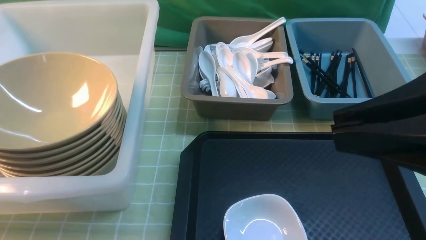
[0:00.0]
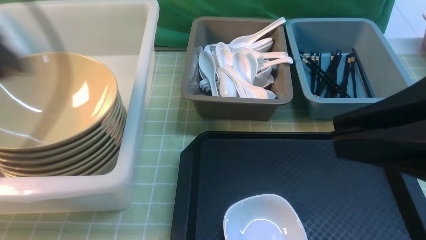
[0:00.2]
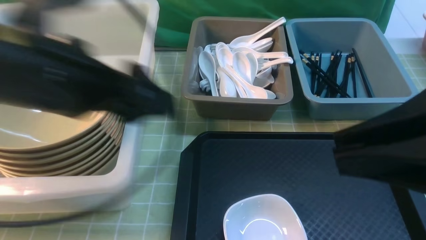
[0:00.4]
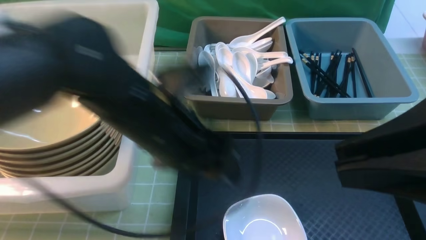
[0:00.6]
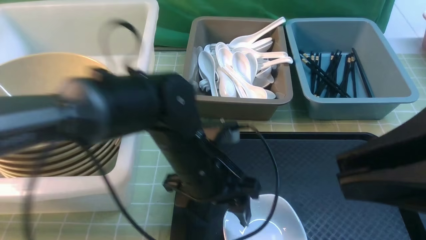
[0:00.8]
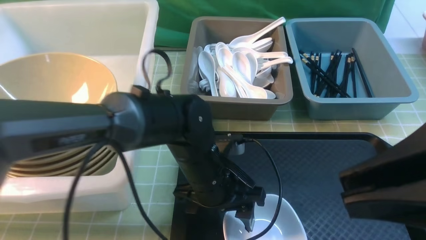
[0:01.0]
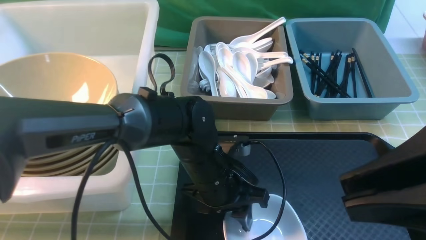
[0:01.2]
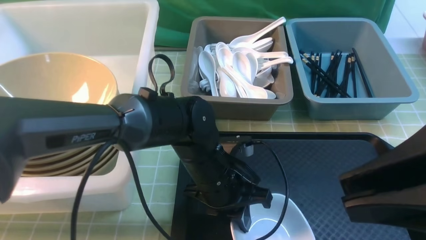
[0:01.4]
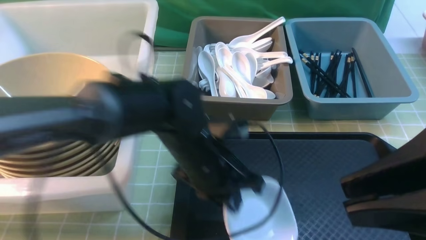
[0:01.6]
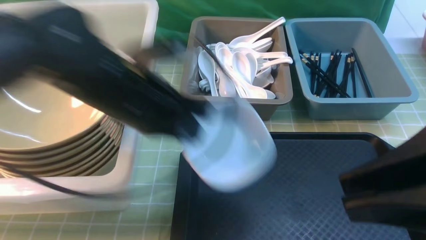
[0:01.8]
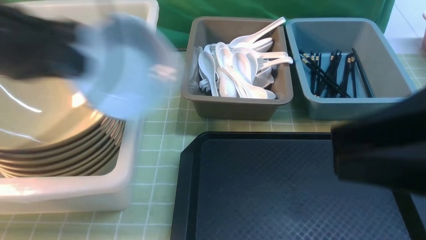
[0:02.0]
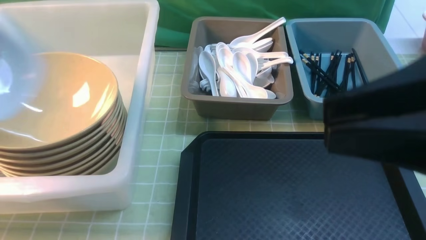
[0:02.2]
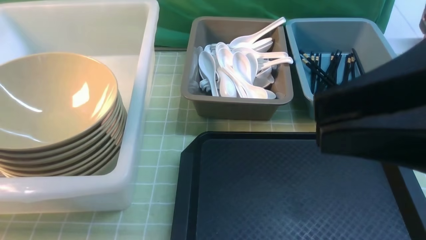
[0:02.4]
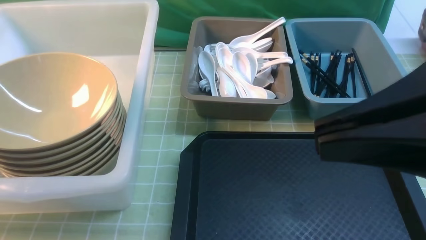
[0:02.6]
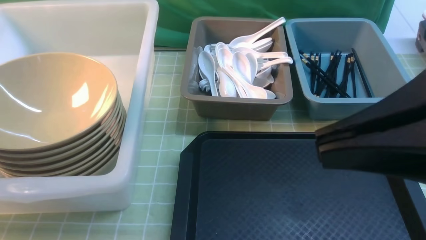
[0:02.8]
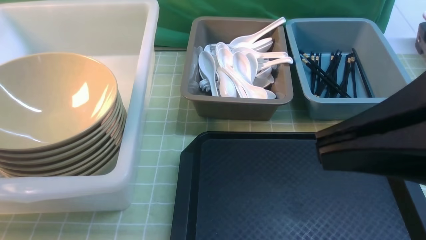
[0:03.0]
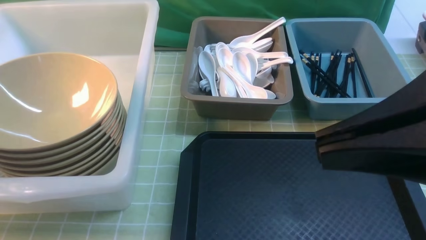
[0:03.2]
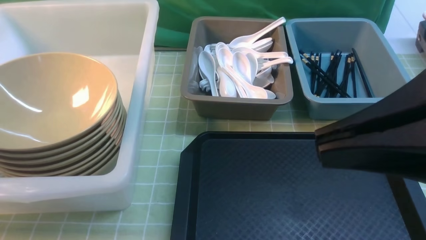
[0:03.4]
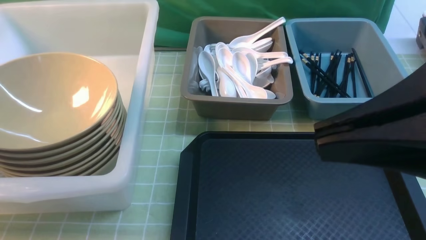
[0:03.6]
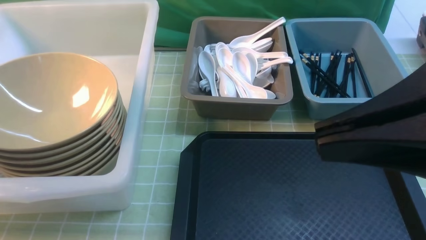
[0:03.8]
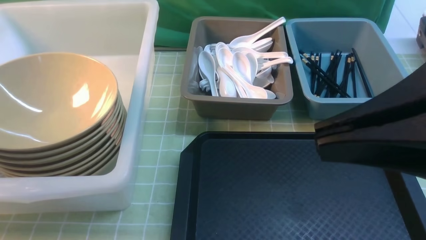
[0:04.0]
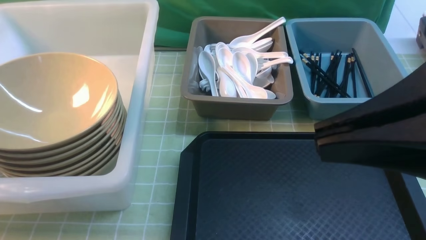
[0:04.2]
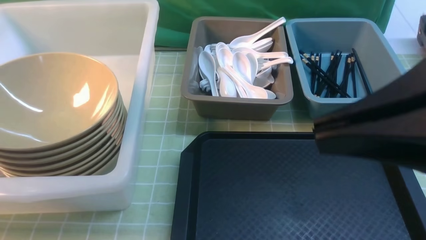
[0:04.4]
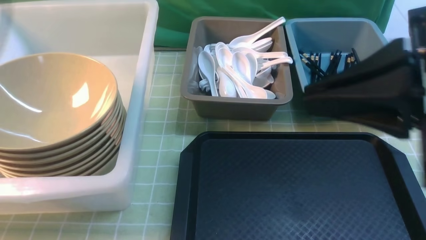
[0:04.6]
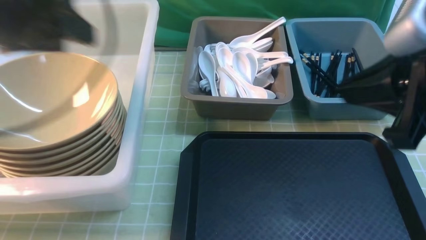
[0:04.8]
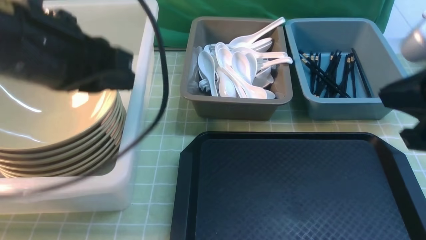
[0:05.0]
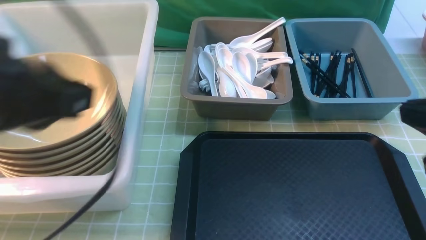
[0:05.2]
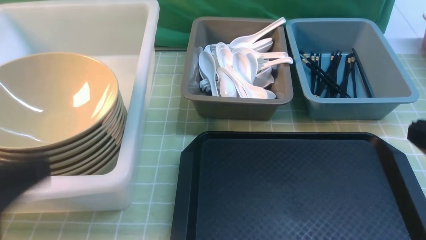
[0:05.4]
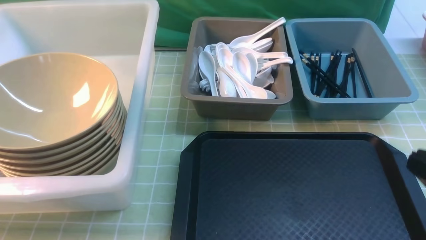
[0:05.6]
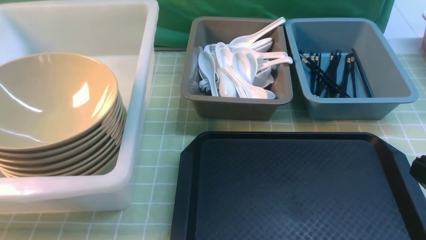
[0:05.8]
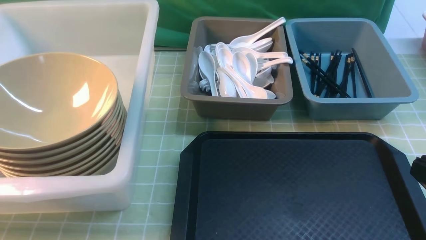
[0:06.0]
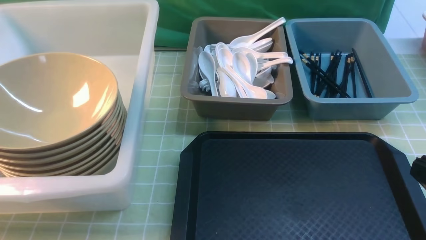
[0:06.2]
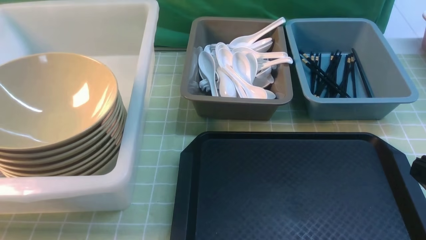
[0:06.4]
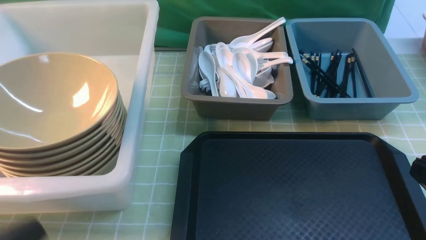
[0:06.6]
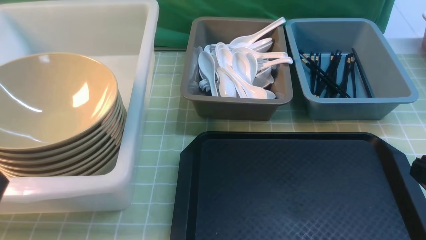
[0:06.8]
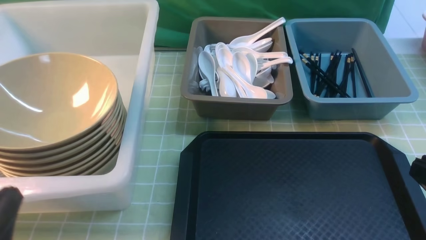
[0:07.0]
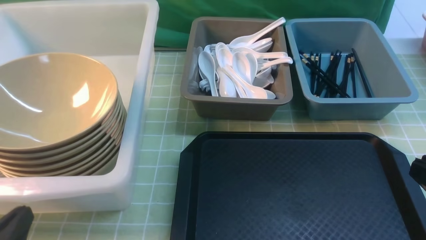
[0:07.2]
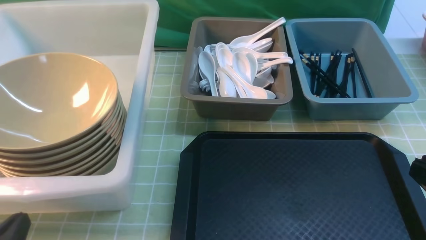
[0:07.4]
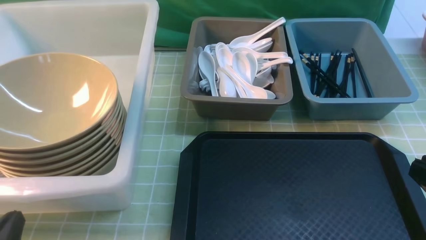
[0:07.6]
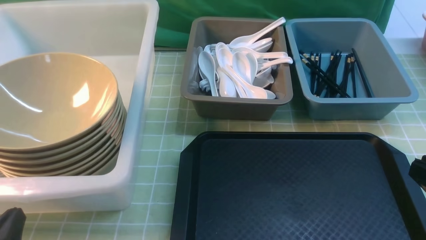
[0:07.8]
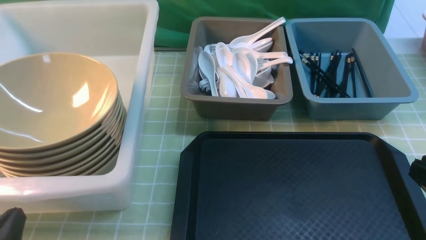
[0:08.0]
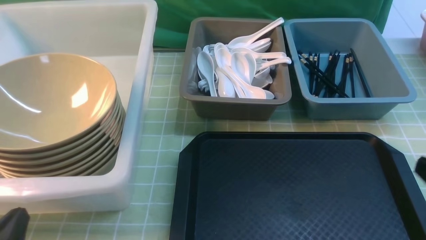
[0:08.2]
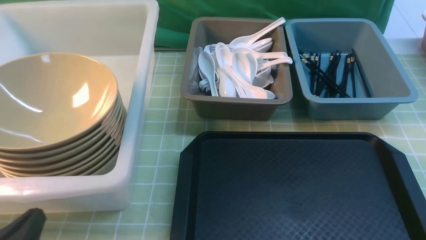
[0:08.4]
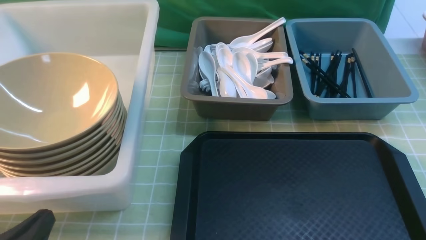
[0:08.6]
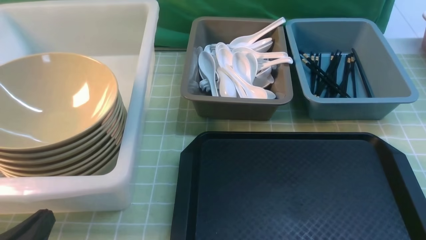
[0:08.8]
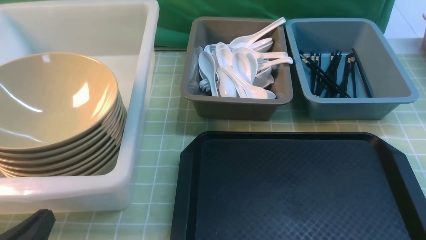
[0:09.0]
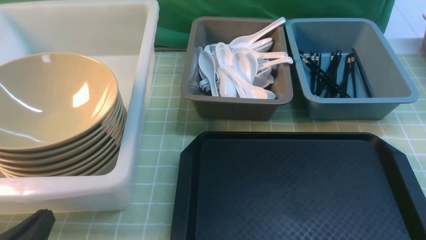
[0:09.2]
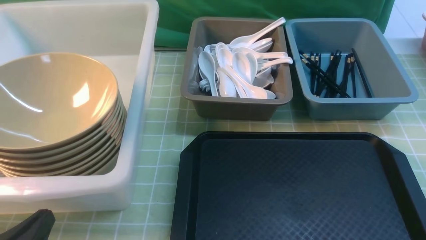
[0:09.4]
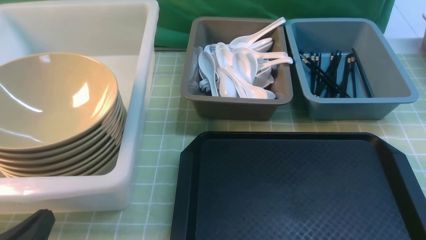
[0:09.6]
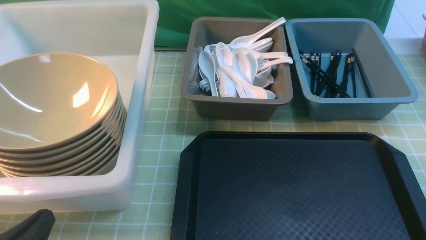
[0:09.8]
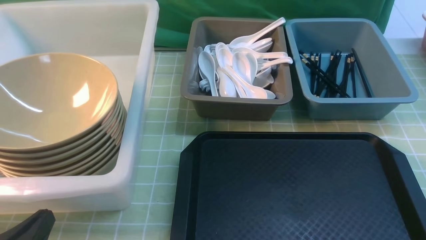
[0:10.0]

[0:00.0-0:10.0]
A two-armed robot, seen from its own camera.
Task of the whole recording: on green table put chopsticks spoon bowls plates into blue grey white boxes.
Step, 0:00.2 to 0:01.6: use the left arm to grab the plate.
Step, 0:01.8 to 0:04.2: use the left arm to put the plate into the large storage box on the left.
0:00.0 to 0:01.4: The left gripper goes some 35 cm to the right and downward, and closes up.
0:01.4 to 0:02.8: The right gripper closes its fingers. The left gripper shifts some 40 cm to the left and upward.
0:04.2 to 0:05.8: The right gripper moves downward and to the right, about 20 cm, while the left gripper travels backward and to the right by roughly 30 cm, and closes its fingers.
0:05.8 to 0:07.2: The left gripper travels downward by some 10 cm.
0:07.2 to 0:08.6: The grippers stay close to where they were, moving slightly.

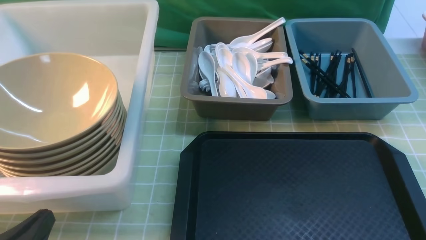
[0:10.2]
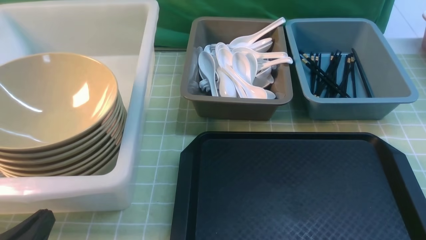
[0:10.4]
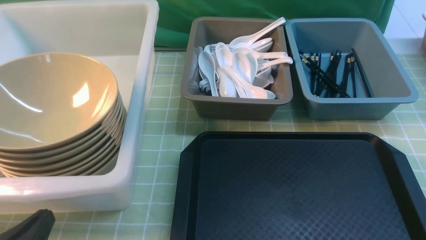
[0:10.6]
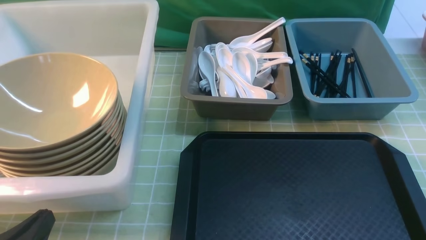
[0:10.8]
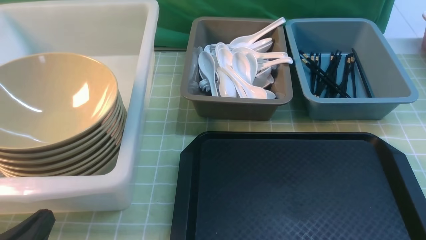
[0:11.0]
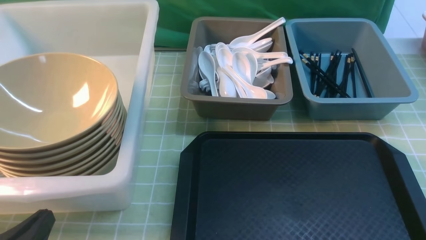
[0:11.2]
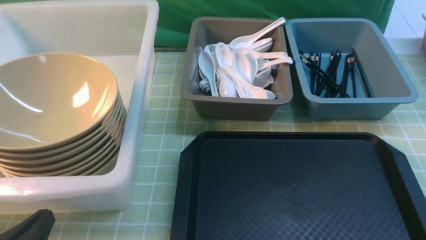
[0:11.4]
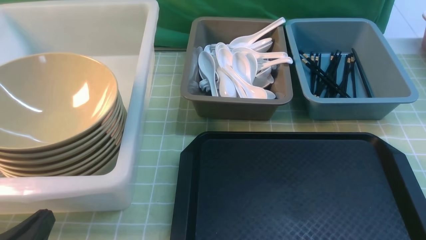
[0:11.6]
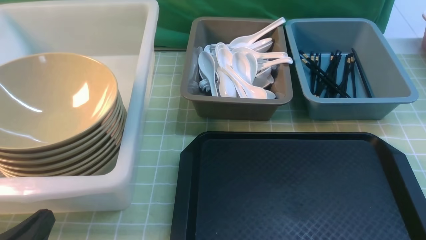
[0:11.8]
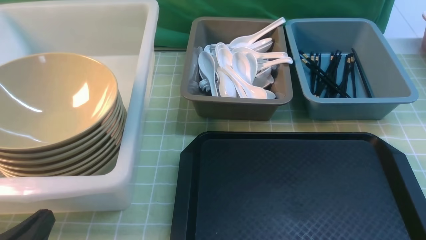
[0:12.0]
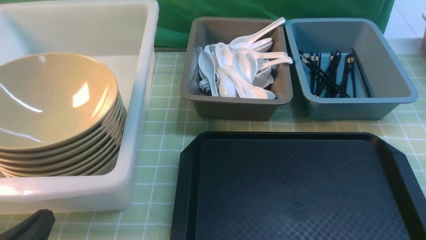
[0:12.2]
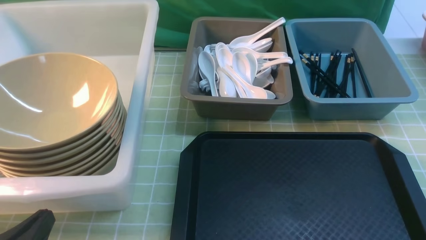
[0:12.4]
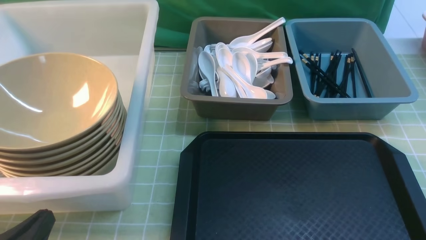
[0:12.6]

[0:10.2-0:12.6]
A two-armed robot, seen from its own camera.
Task of the whole recording: on green table put chopsticks spoon bowls plates into blue grey white boxes.
0:10.2 to 0:12.6: Both grippers stay about where they are.
